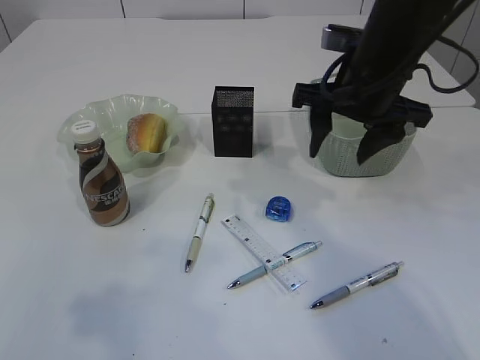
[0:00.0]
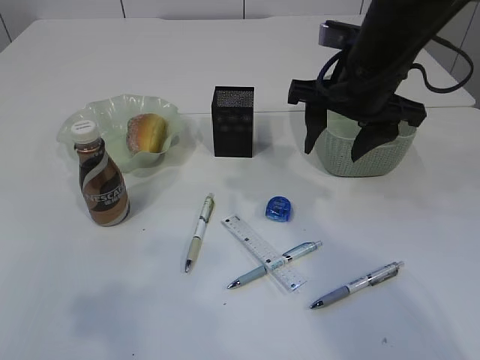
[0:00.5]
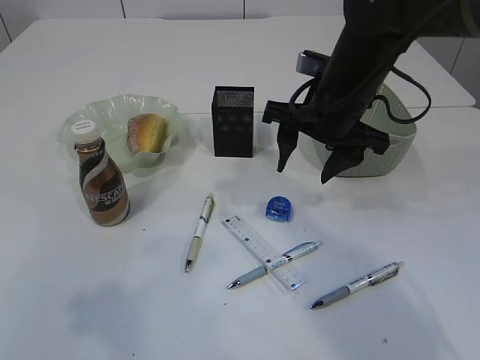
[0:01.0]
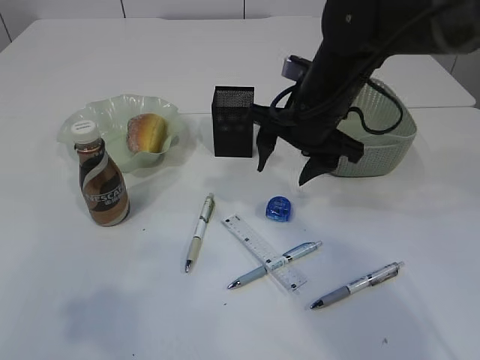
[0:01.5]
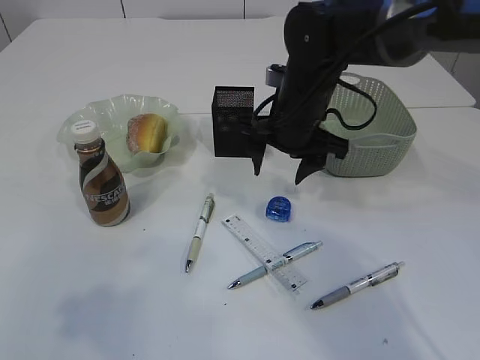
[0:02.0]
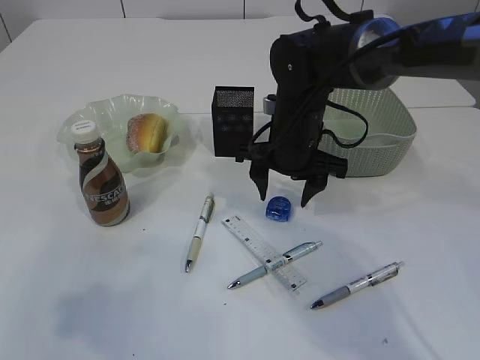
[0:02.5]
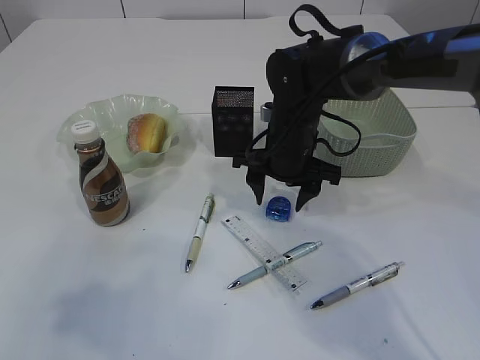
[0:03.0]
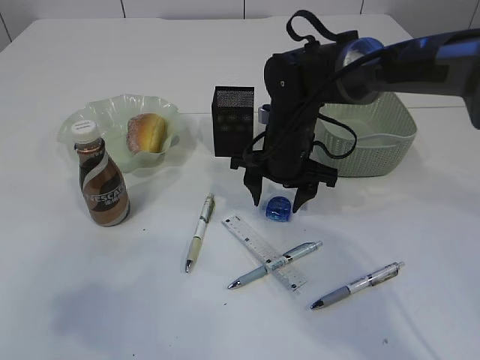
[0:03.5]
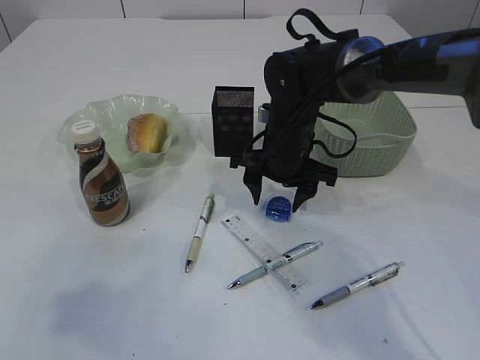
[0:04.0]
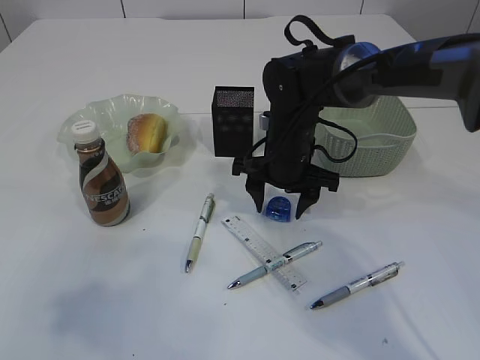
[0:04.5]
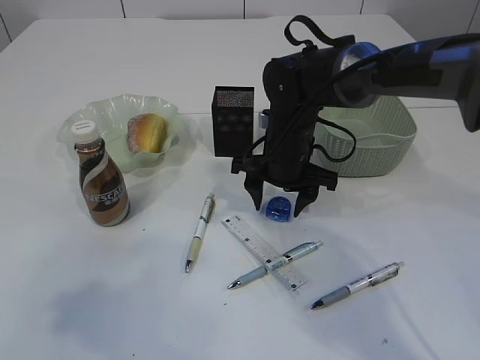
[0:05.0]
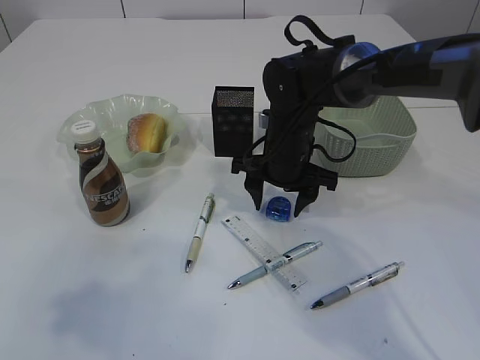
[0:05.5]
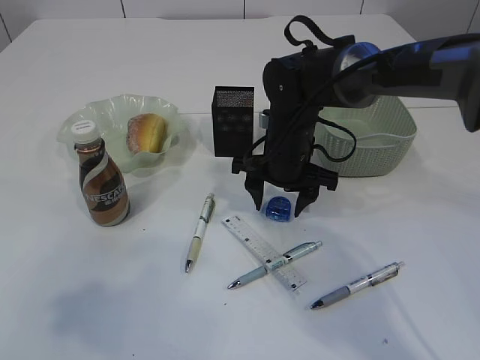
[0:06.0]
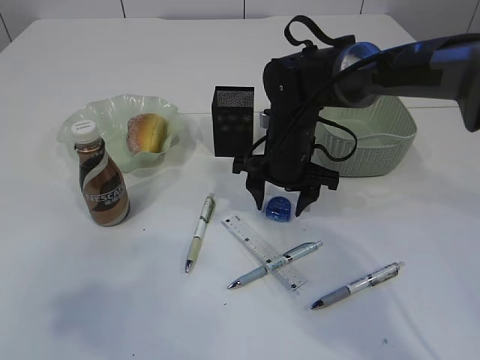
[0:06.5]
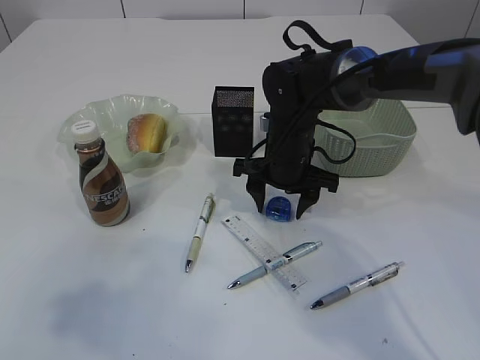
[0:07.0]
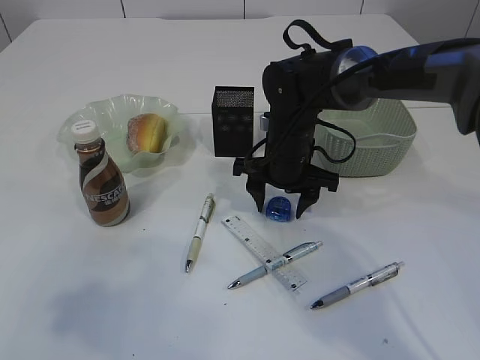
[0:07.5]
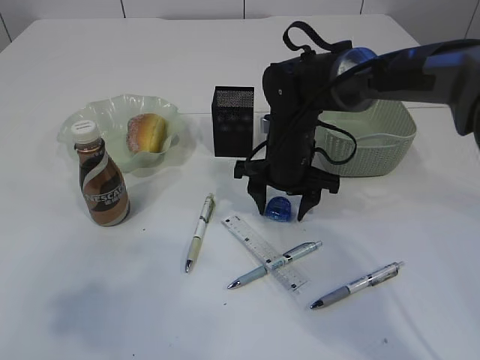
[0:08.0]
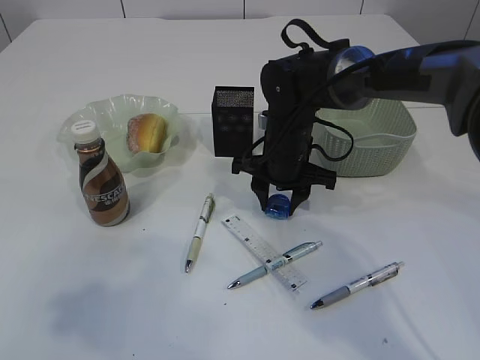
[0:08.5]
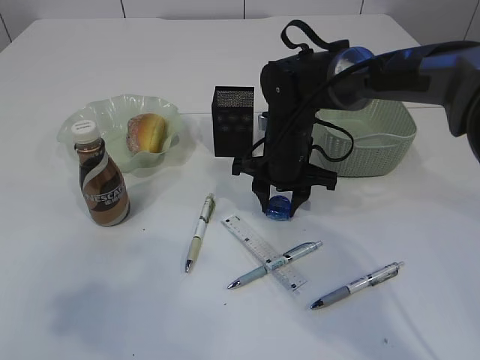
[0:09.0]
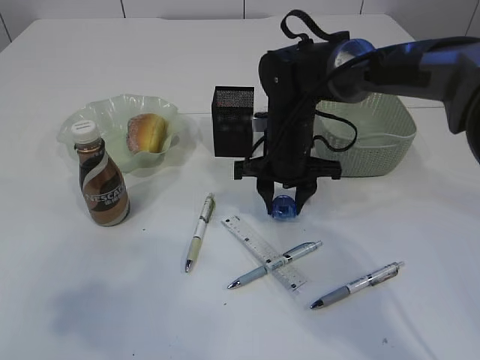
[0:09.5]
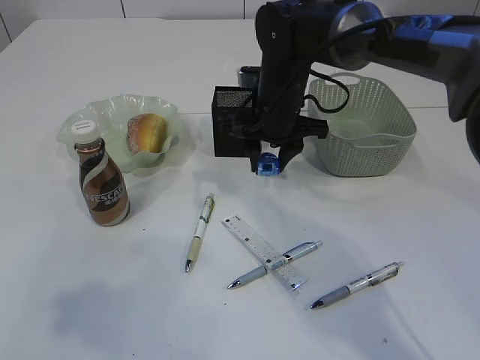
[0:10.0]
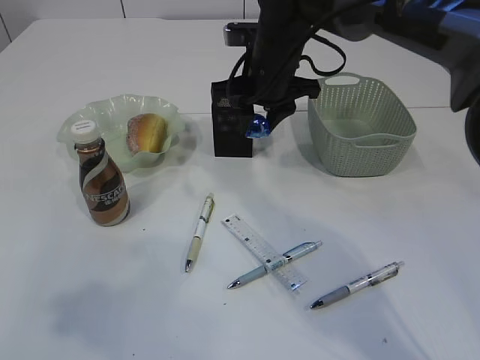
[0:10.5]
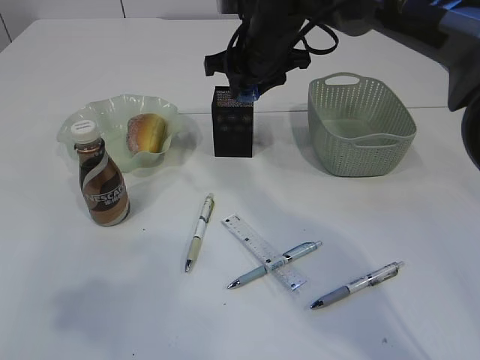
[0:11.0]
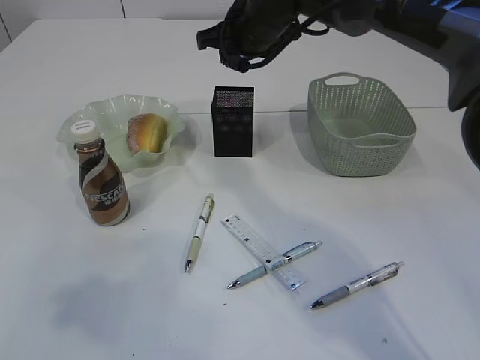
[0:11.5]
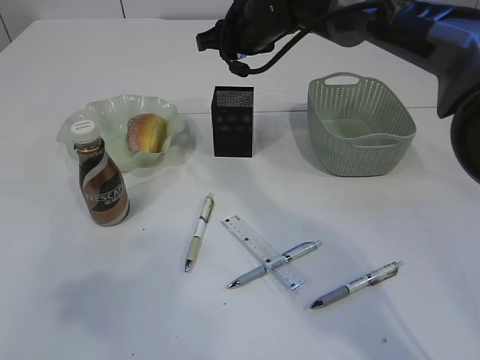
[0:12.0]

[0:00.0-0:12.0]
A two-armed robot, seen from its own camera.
Step, 0:00.0 to 0:10.0: Pick up the blue pencil sharpener.
0:00.0 to 0:02.0: The right gripper travels downward and to the left by about 10 cm.
0:02.0 to 0:04.0: The right gripper shifts roughly 5 cm downward.
0:04.0 to 0:06.0: Neither gripper changes place.
0:06.0 to 0:08.0: Both grippers stay put.
0:08.0 to 0:10.0: The right gripper moves upward, roughly 5 cm, and closes.
0:10.0 to 0:12.0: The right gripper moves upward and forward, roughly 10 cm.

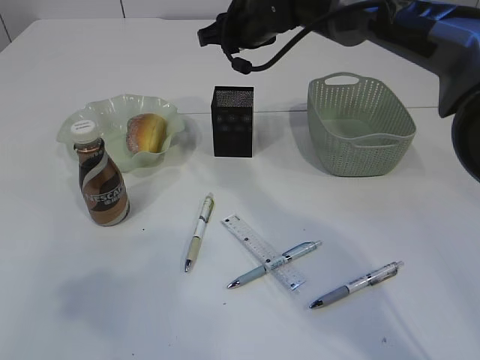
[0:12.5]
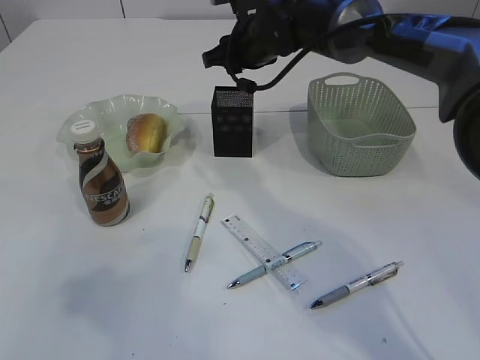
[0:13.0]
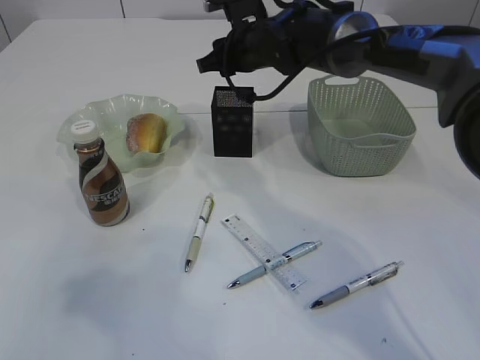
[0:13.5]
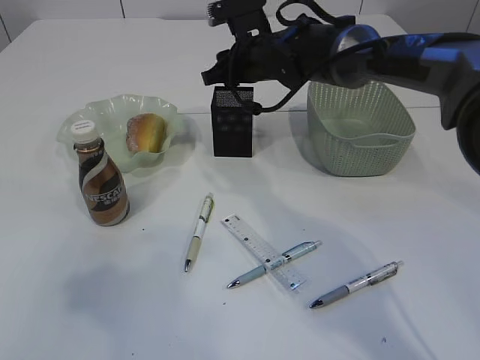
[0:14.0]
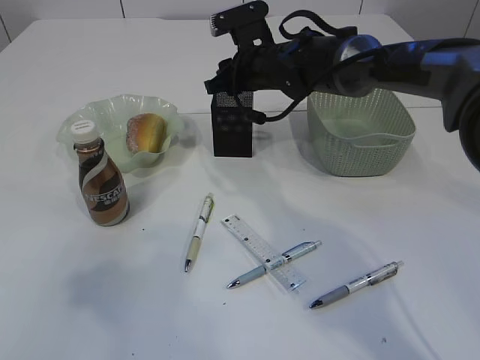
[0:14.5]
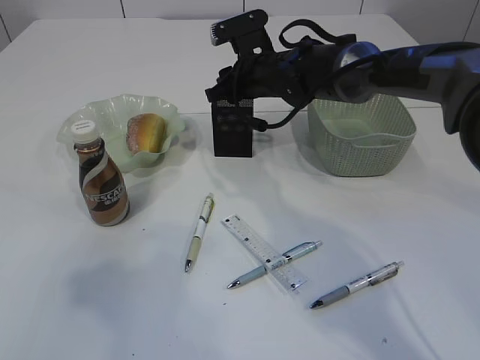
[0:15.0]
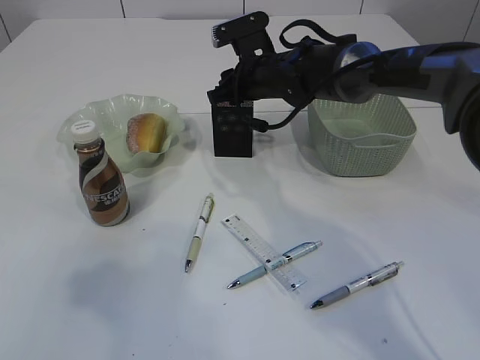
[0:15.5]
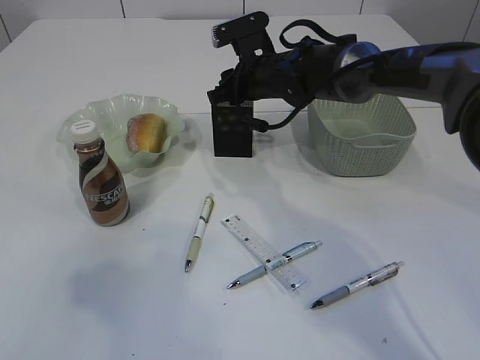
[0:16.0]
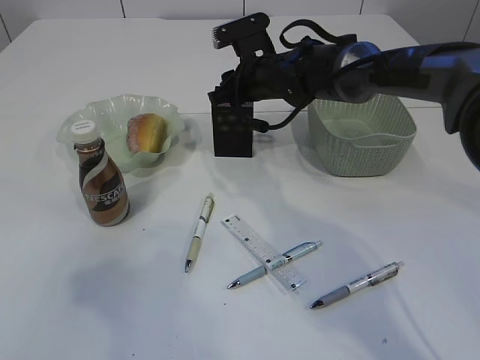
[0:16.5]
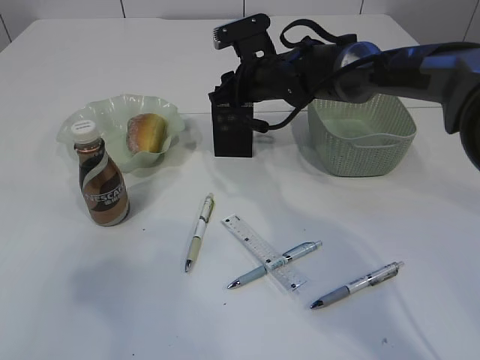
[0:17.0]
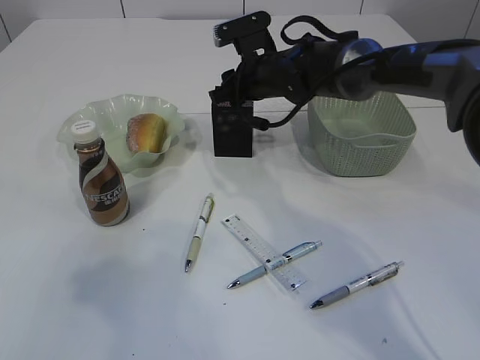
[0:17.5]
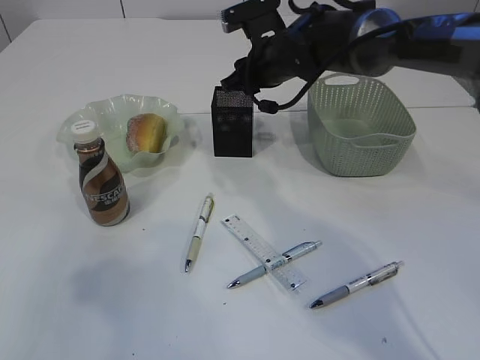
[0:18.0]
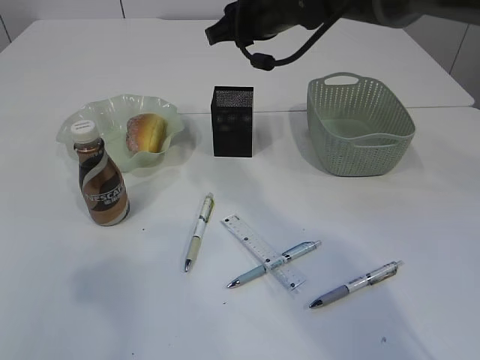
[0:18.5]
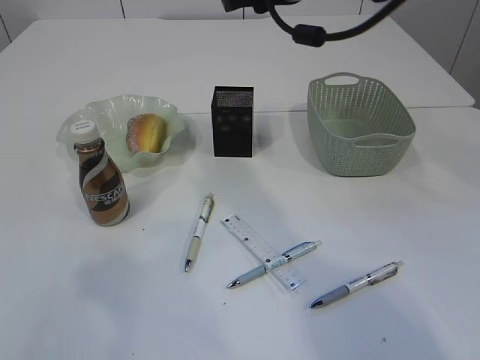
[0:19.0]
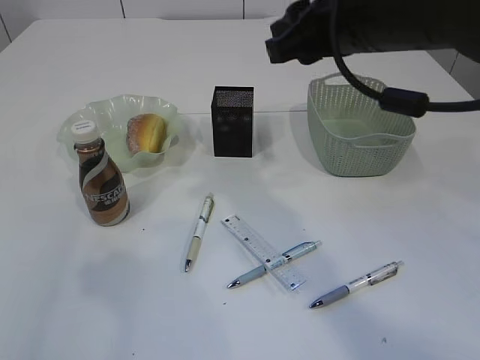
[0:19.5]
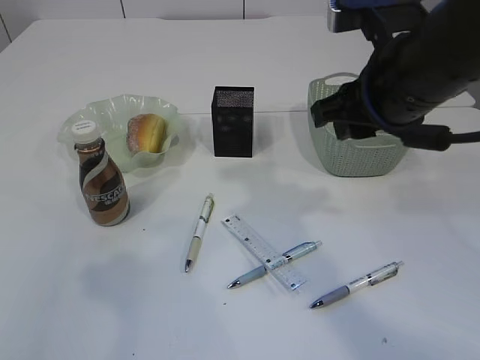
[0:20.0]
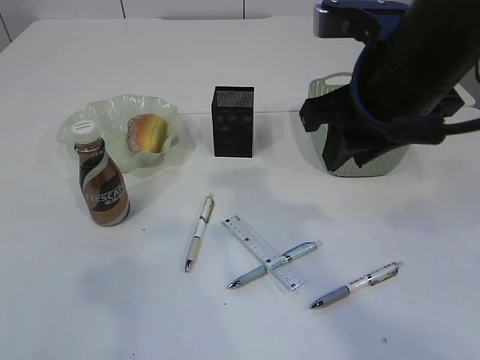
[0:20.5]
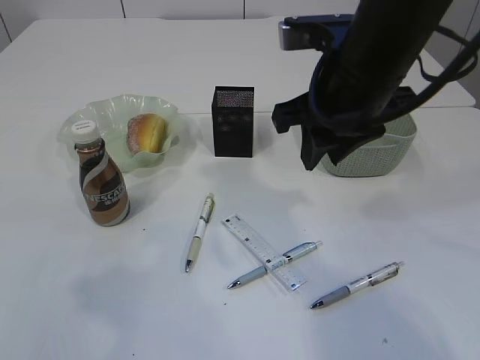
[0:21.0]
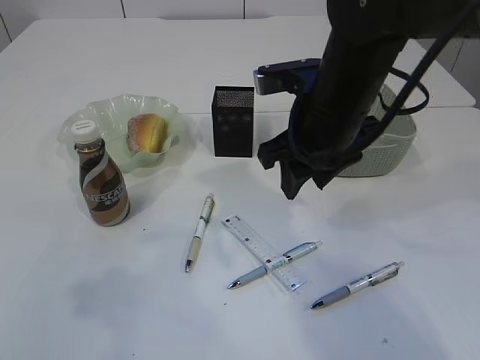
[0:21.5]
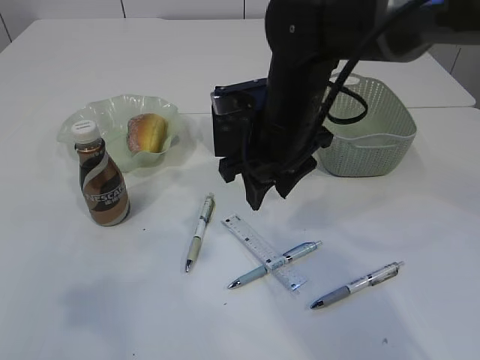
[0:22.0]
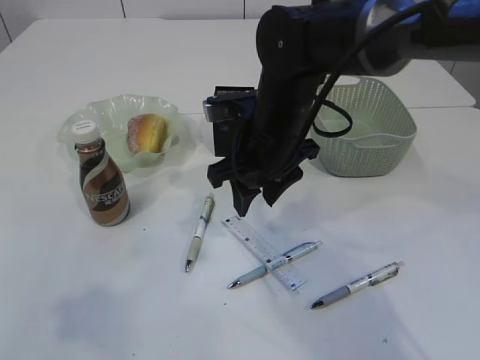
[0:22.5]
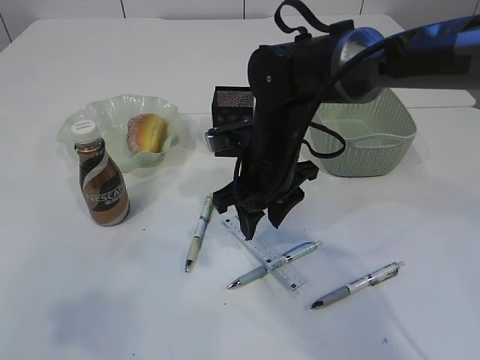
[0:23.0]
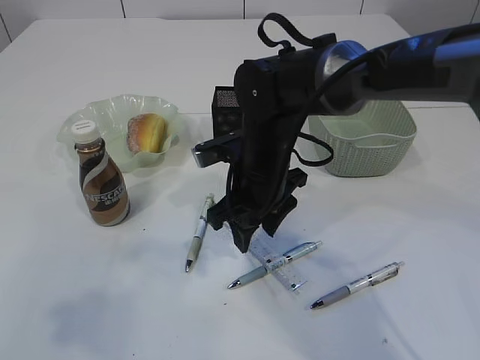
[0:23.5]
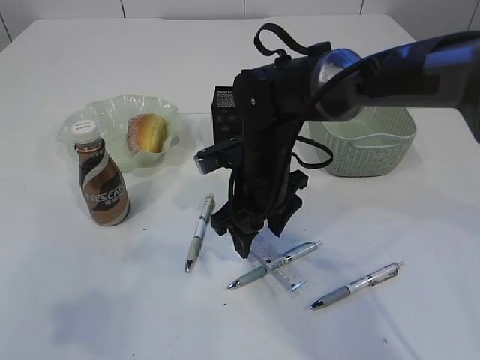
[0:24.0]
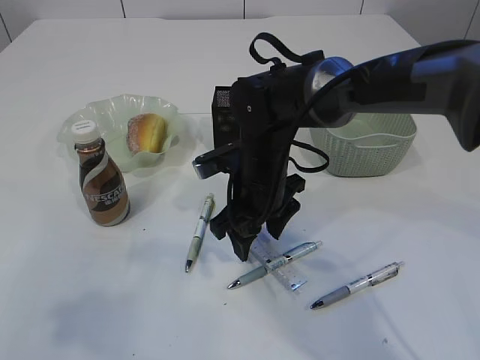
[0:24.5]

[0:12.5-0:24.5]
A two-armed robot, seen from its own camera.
Step, 0:12.5 to 0:18.0: Place the blue pencil sharpener into the pen holder.
0:12.5 to 0:14.5: The right gripper heads downward, covering approximately 5 cm.
0:14.5 to 0:16.5: The grippers stay close to where they were, moving slightly.
0:16.5 to 0:18.5: The right gripper shifts roughly 10 cm upward.
0:18.5 to 0:20.5: The right gripper travels backward by about 20 cm.
0:20.5 to 0:22.5: The right gripper moves downward, forward and to the left, approximately 15 cm.
0:22.5 to 0:24.5: The right gripper moves downward, some 5 cm.

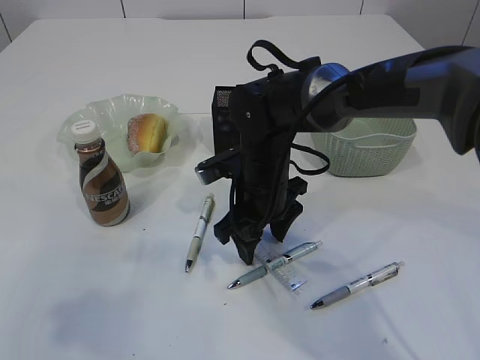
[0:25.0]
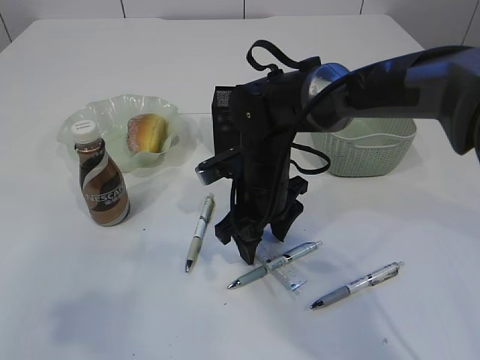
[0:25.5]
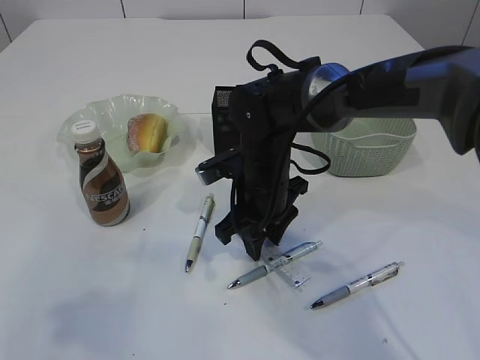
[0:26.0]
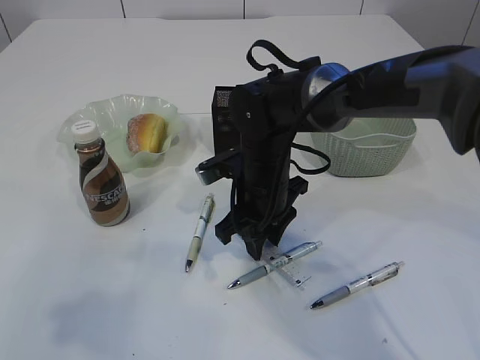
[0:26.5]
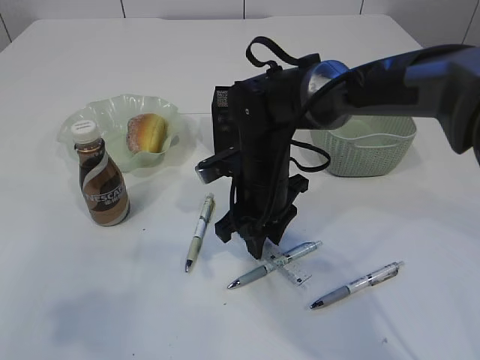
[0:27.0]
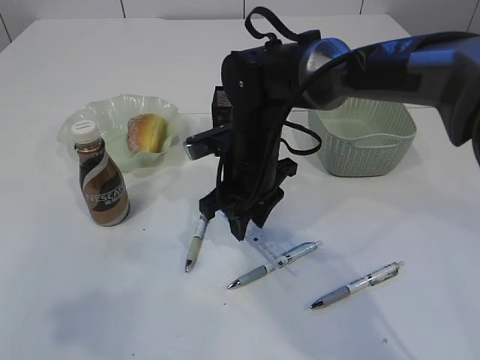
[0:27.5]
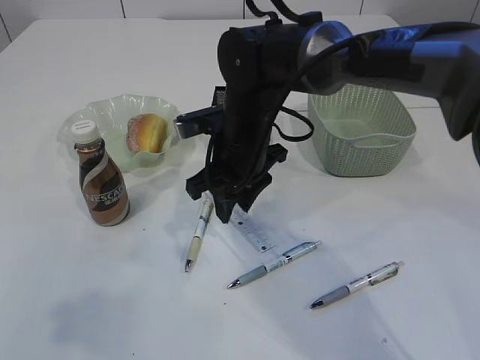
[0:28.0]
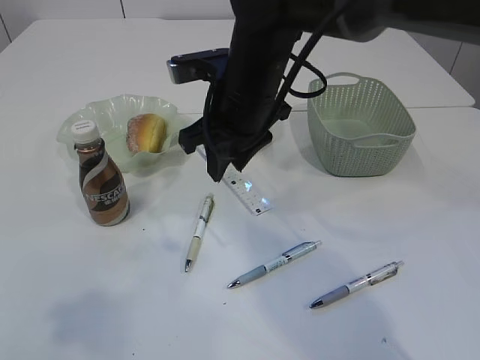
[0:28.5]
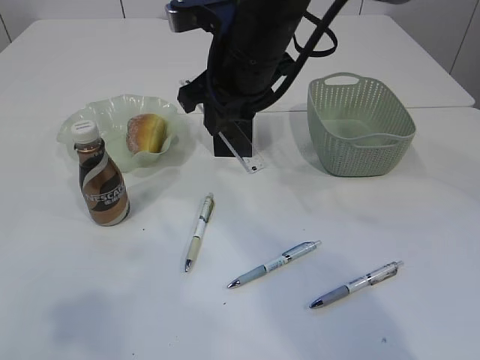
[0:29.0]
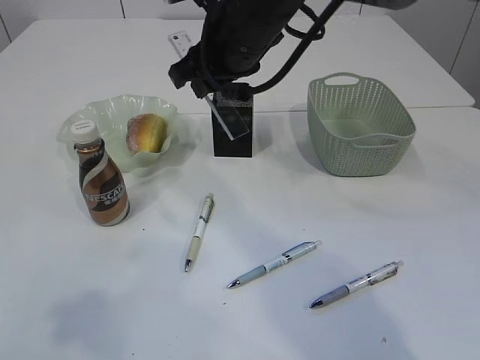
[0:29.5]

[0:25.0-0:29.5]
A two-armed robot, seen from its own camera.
Step, 0:25.0 to 0:27.5: pick up the ruler.
0:25.0 to 0:27.0: The right gripper closes up.
0:27.0 to 0:29.5: The right gripper goes approximately 15 cm upward.
